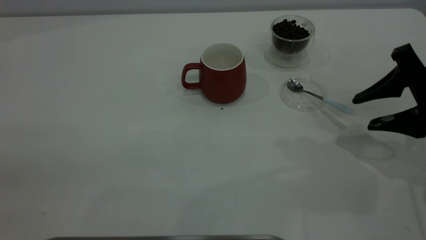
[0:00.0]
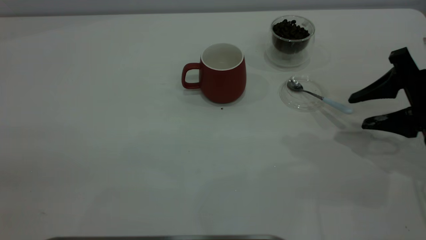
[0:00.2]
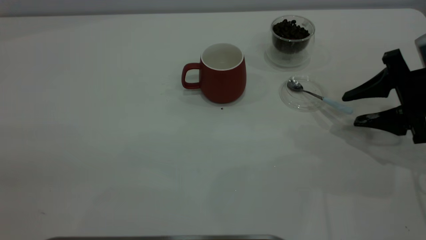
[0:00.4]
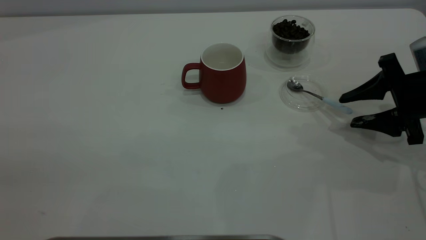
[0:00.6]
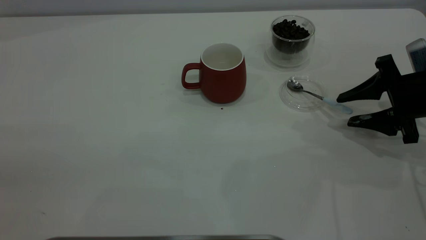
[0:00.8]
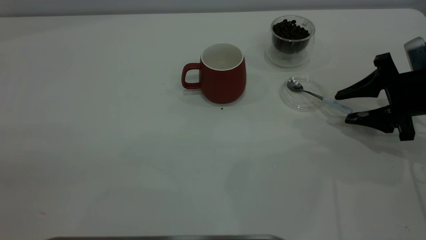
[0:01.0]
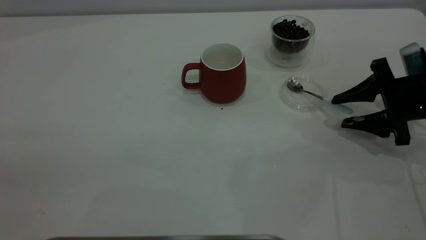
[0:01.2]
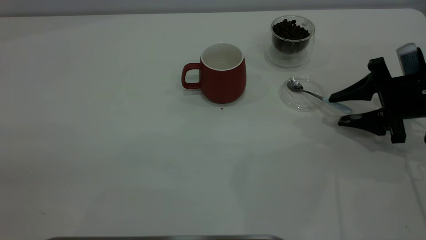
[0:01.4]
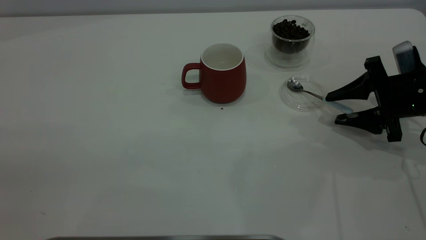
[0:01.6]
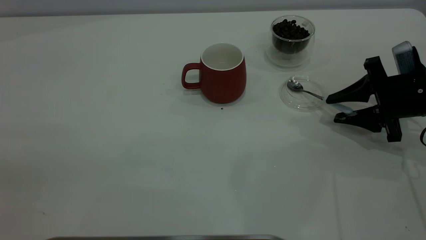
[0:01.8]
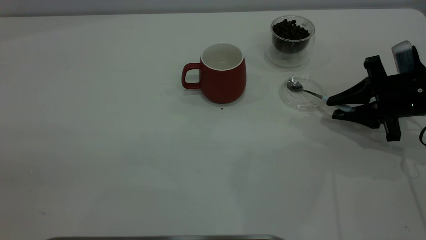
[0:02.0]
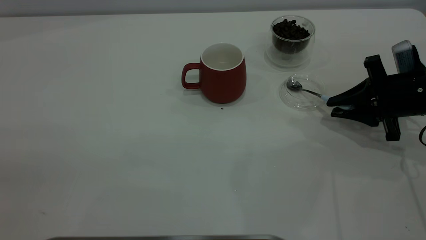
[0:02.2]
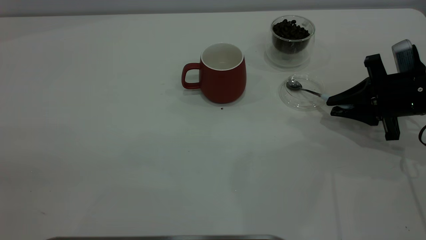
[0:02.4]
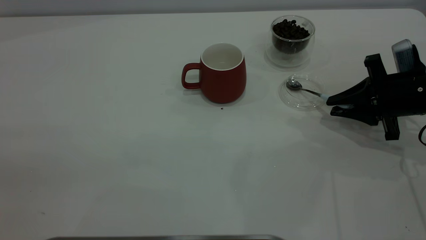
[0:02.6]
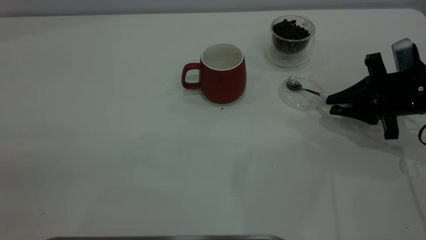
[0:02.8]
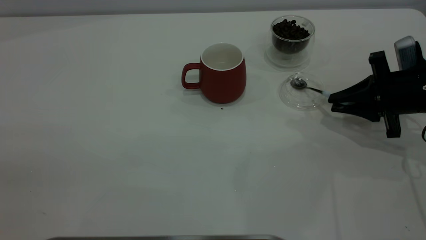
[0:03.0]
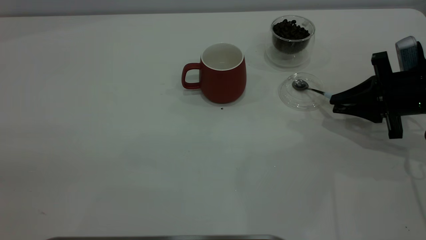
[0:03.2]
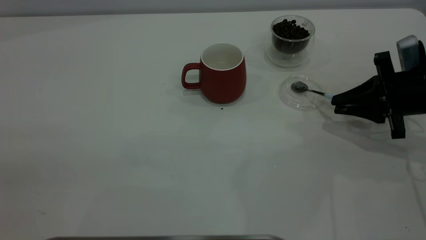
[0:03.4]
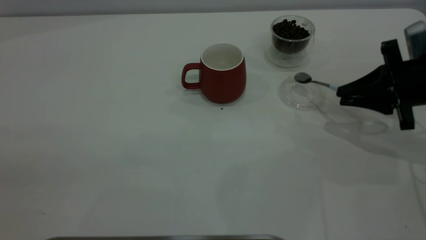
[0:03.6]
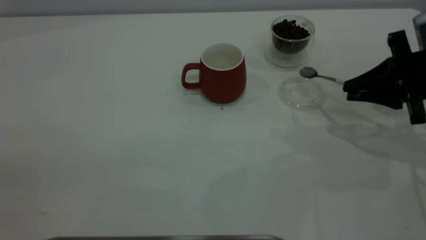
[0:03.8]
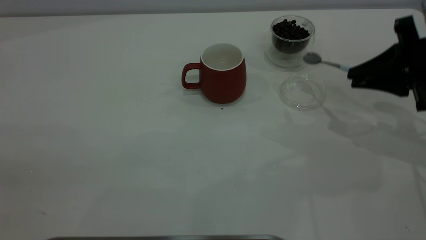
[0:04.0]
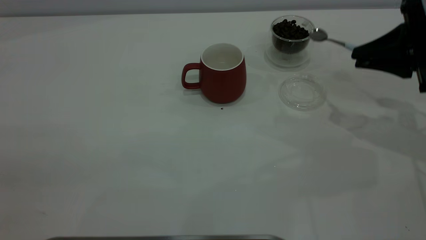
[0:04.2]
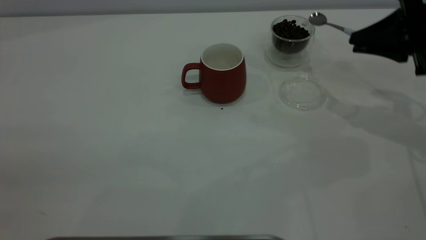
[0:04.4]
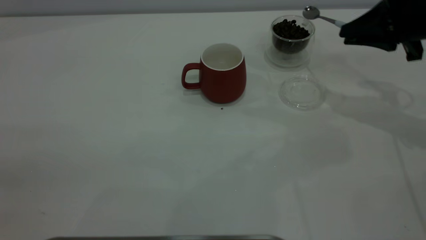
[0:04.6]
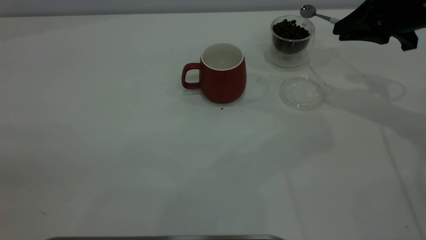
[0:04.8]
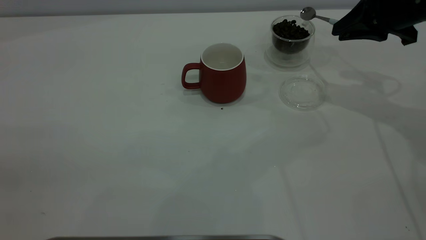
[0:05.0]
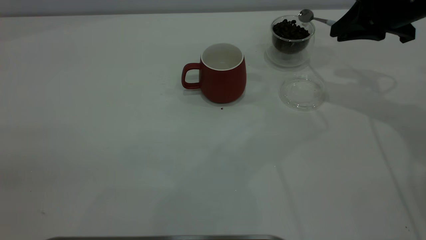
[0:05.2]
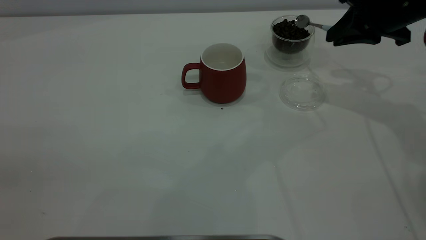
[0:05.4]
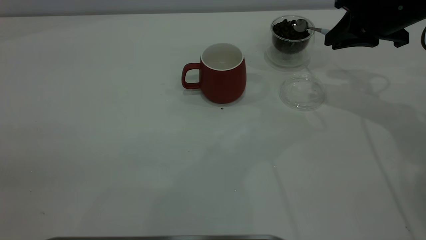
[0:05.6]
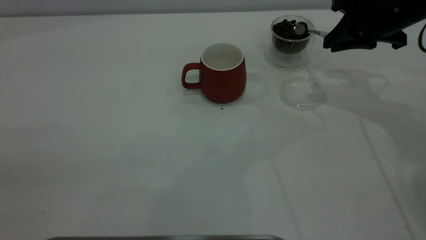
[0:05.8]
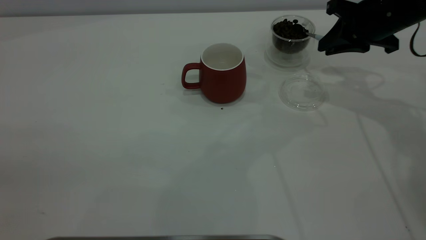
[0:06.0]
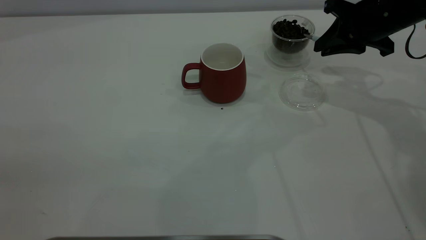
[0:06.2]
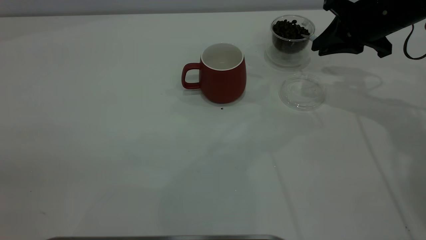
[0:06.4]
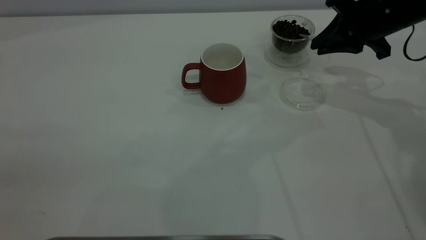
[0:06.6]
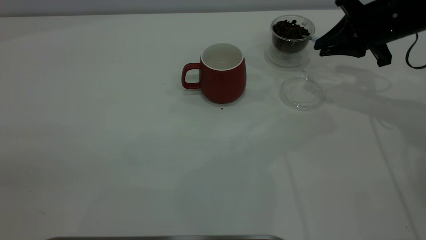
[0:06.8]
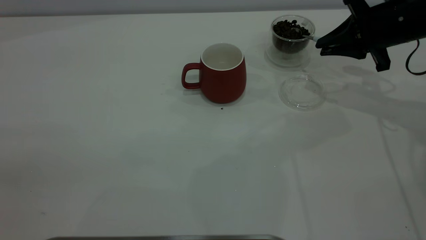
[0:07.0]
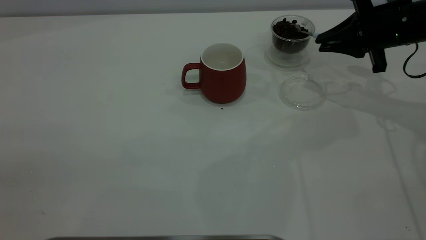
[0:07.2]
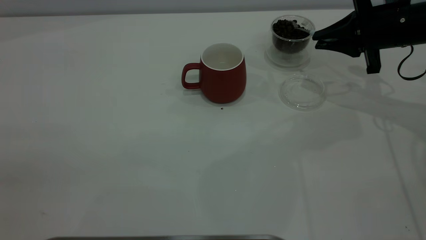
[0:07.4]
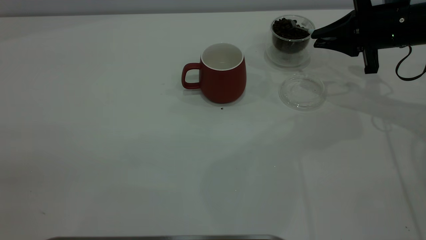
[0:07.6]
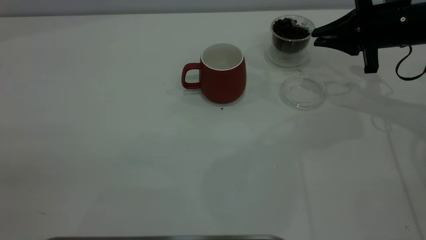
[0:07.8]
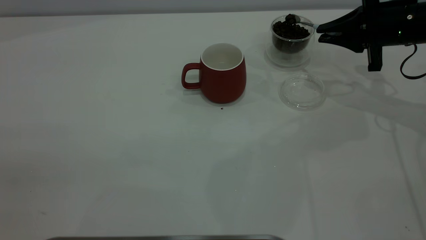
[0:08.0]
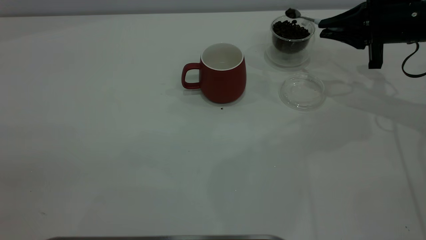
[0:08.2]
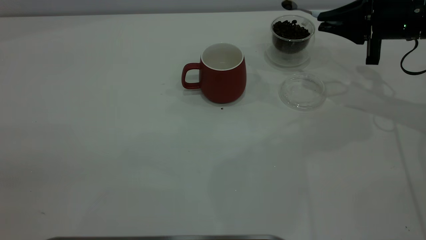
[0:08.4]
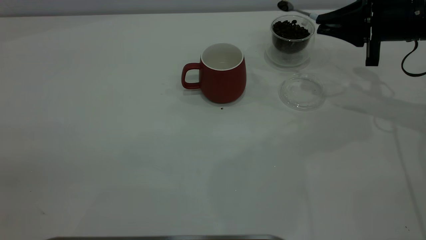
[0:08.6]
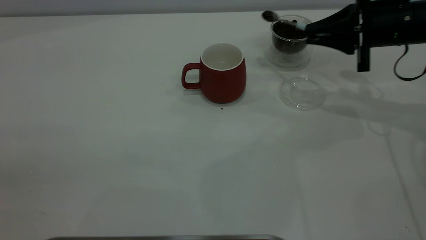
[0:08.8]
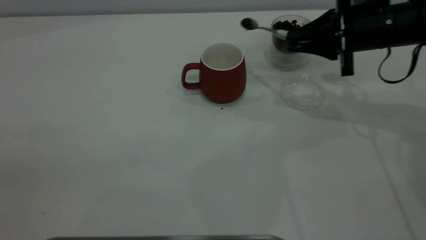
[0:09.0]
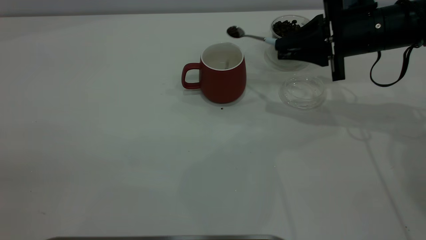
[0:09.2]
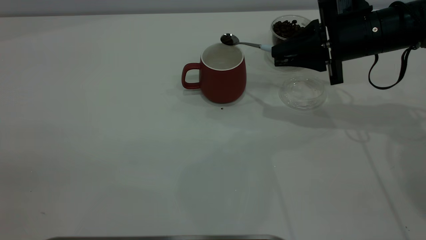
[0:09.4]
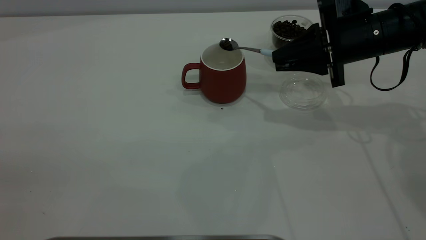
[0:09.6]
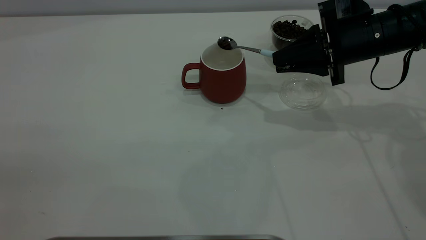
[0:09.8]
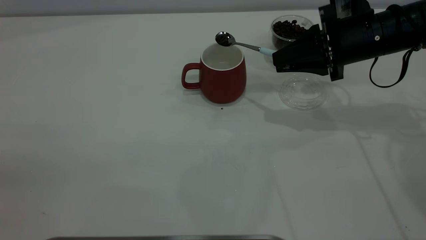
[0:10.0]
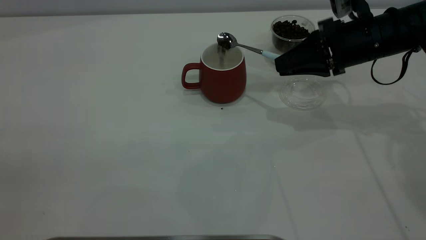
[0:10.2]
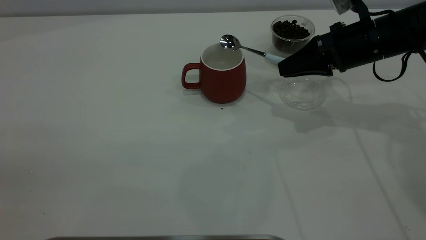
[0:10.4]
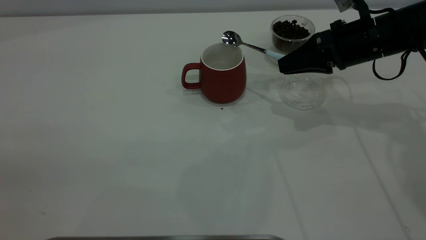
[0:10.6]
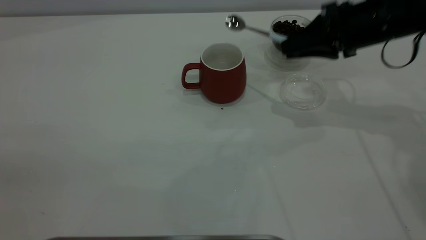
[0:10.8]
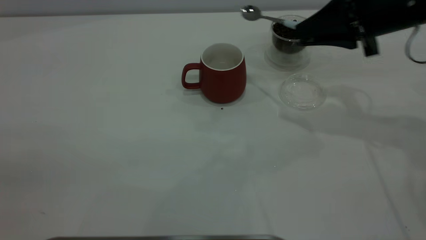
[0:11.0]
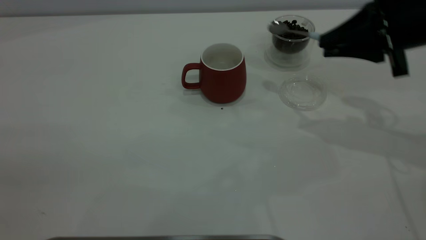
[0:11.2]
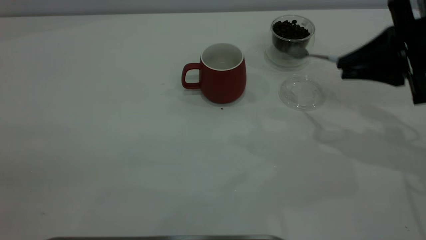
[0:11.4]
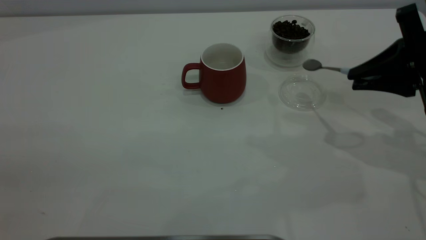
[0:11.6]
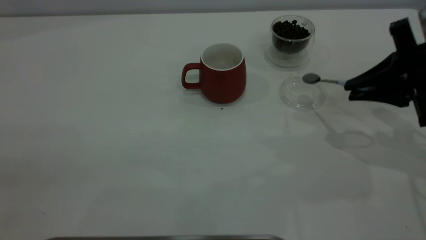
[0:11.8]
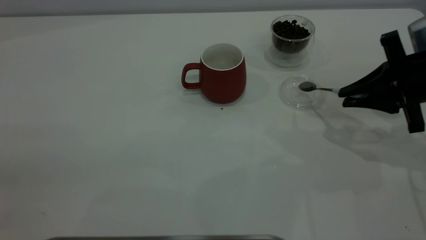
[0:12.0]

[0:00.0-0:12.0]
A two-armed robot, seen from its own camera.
Task of the whole recording: the left gripper place the red cup in the center of the table, the right gripper take the blue spoon from the cup lid and scoop out the coffee beans from the coffee cup and put them into the red cup, the right gripper put the spoon back into the cup lid.
Step, 0:00.0 to 0:03.6: Pick up the spoon.
Step, 0:03.8 to 0:10.6: Scoop a spoonful of beans into the cup.
0:00.0 to 0:01.6: The right gripper heads downward and forward, covering about 10 cm.
0:01.6 to 0:03.0: The right gripper closes its fingers.
0:03.0 to 0:04.4: The right gripper moves upward, about 10 cm.
0:04.4 to 0:06.0: The right gripper moves forward and to the left, some 10 cm.
0:07.6 to 0:09.0: The grippers stay close to where they were, moving slightly.
0:10.4 to 0:12.0: The right gripper is displaced backward and to the right by about 10 cm.

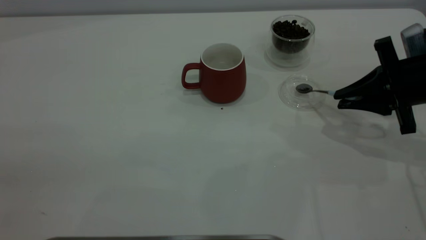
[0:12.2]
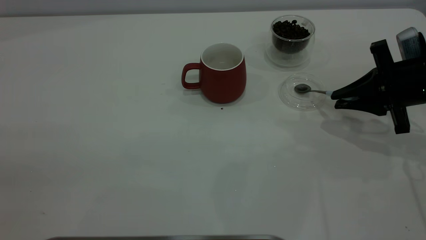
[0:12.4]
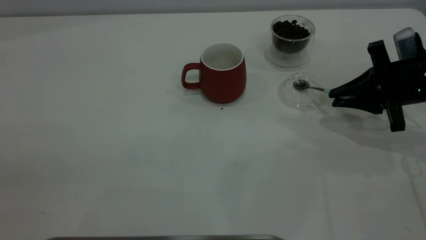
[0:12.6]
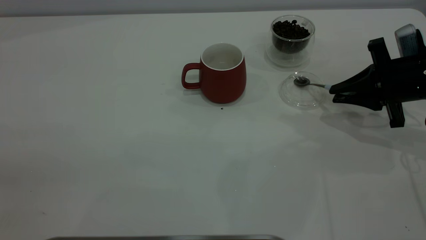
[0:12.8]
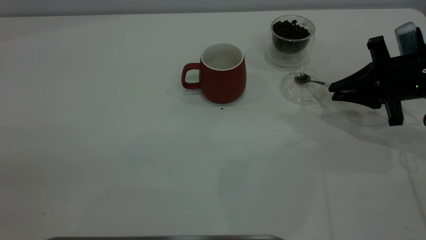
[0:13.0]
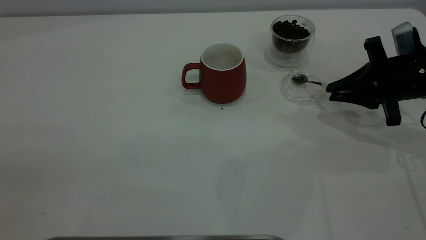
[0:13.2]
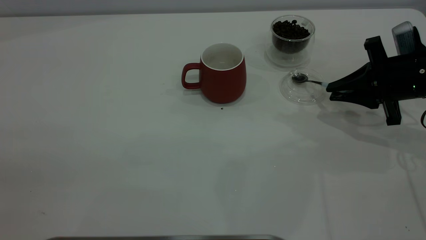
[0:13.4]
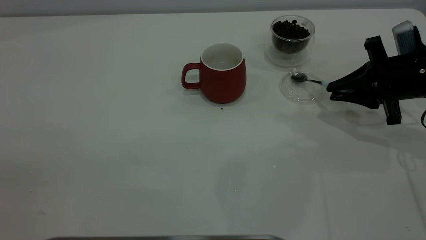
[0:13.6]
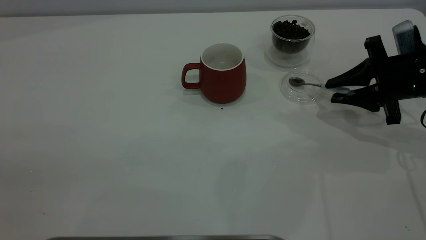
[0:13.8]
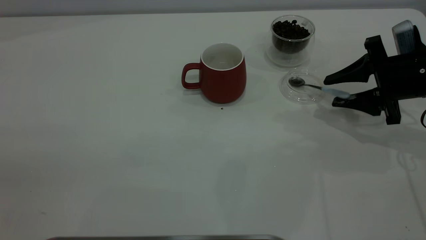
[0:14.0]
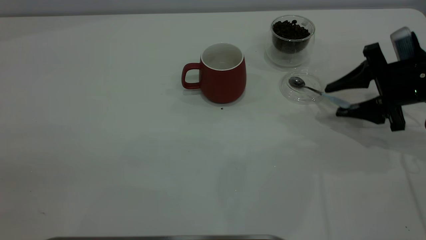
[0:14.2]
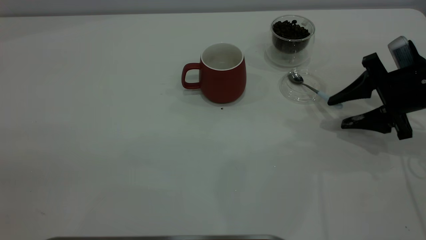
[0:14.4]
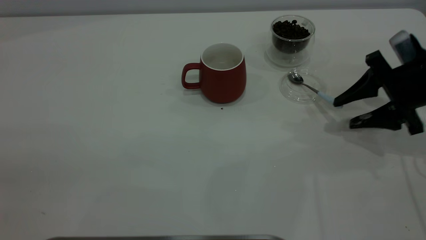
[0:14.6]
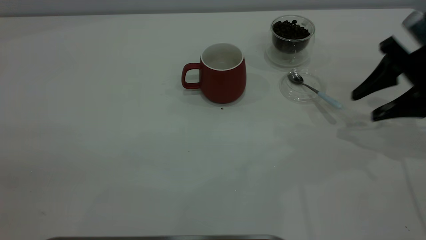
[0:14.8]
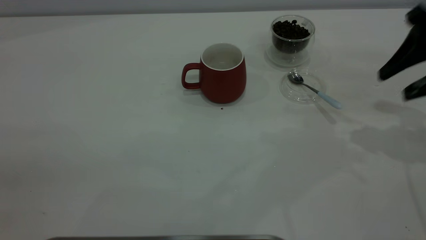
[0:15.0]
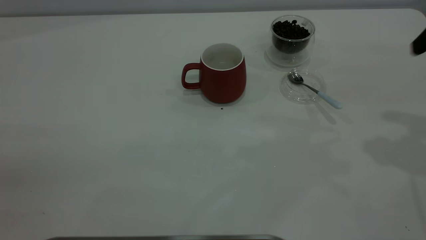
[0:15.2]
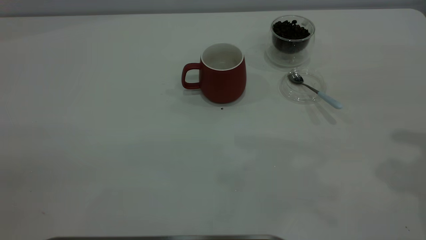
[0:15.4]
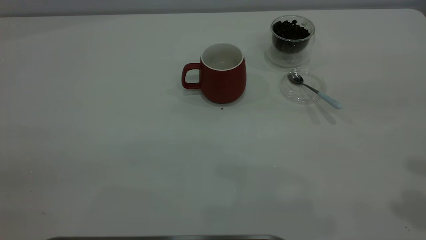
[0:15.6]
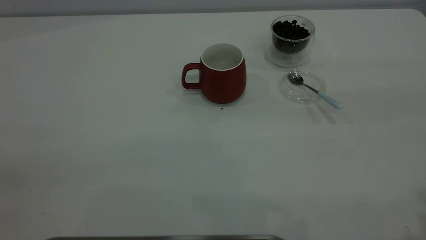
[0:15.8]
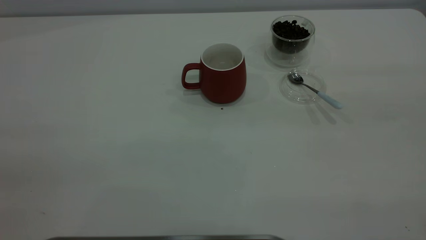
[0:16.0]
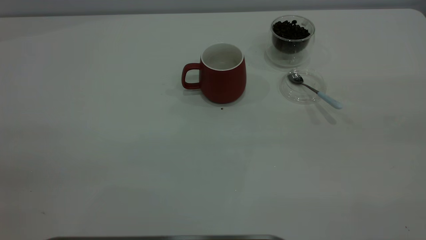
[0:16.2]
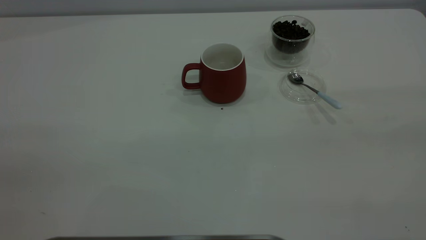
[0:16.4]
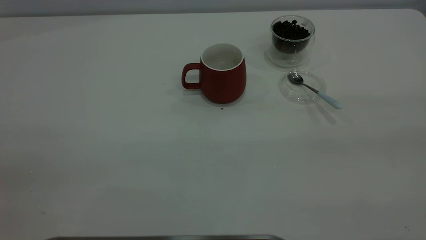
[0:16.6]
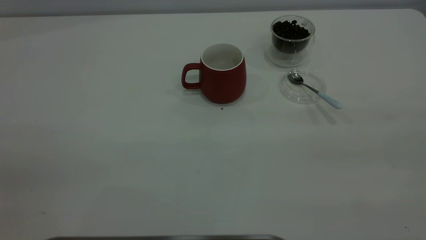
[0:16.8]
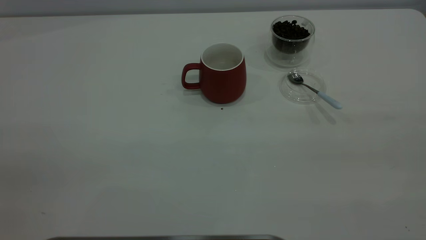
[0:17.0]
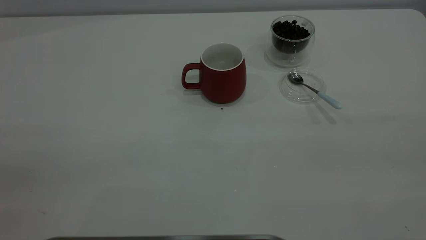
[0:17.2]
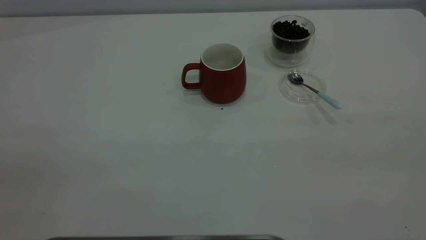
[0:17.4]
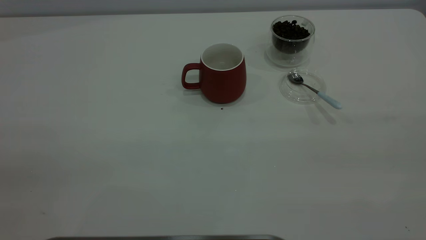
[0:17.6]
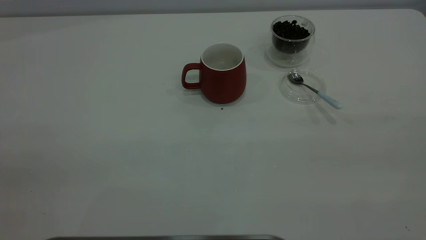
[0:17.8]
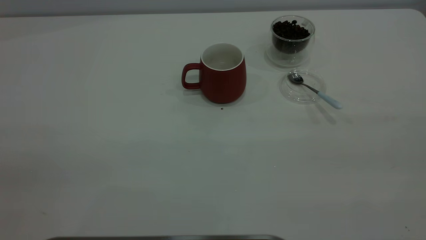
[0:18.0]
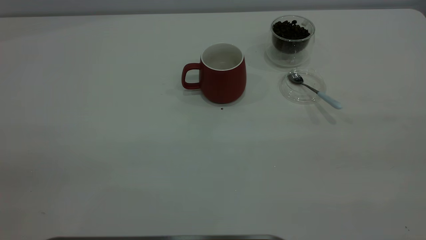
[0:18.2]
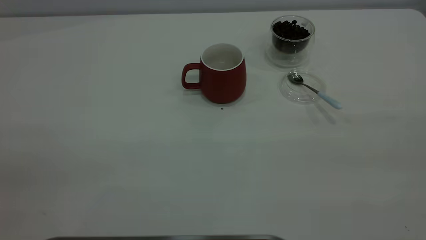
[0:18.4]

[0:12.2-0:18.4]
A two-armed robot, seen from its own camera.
Task of the whole recording: the left gripper place the red cup in the center of the table, the right gripper take the blue spoon from the cup lid and scoop out the coffee beans from the coffee cup and put them into the red cup, the right gripper put the spoon back into the cup lid.
Step, 0:12.2 to 0:14.4: Place the spoon back in its original place.
0:12.2 to 0:13.8: The right gripper opens its fingers.
0:13.8 to 0:15.4: The right gripper travels upward and backward by approximately 25 cm, and opens up.
